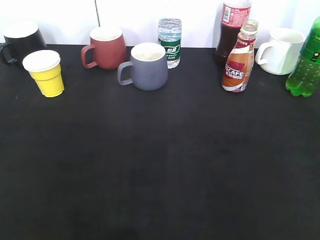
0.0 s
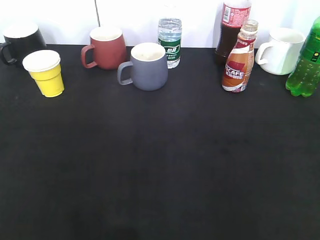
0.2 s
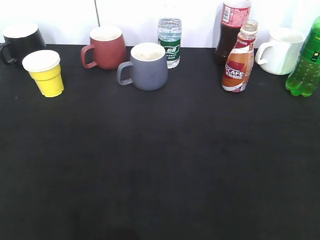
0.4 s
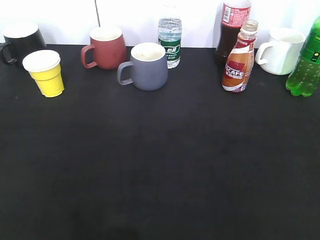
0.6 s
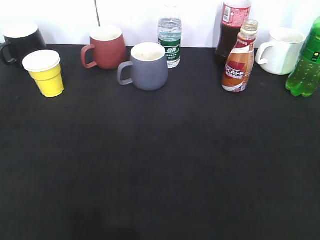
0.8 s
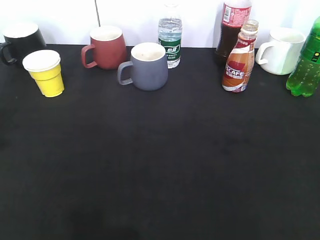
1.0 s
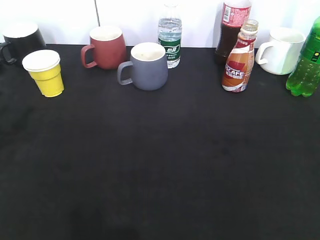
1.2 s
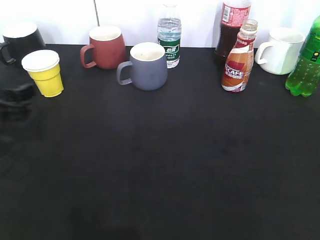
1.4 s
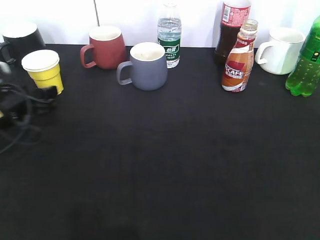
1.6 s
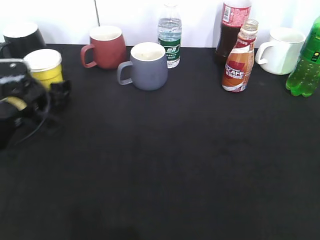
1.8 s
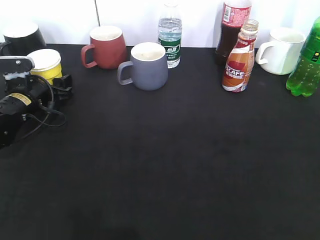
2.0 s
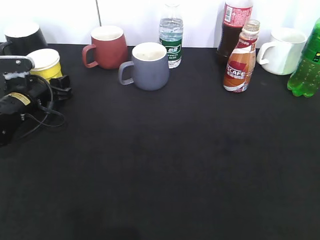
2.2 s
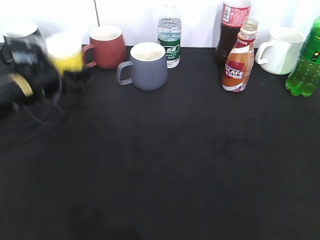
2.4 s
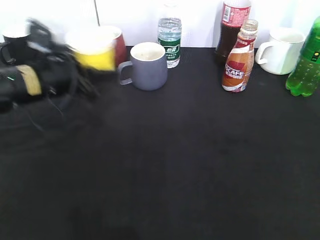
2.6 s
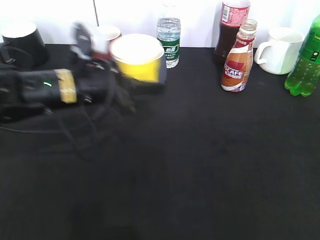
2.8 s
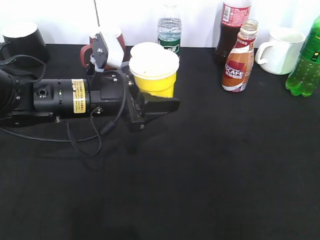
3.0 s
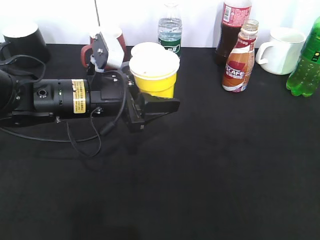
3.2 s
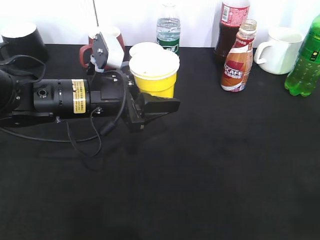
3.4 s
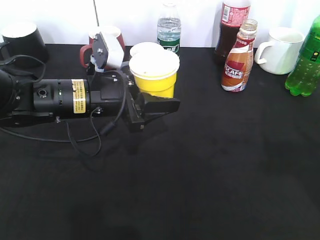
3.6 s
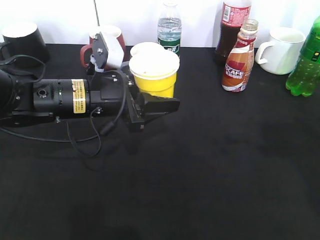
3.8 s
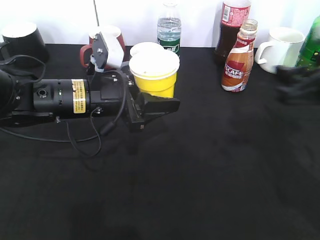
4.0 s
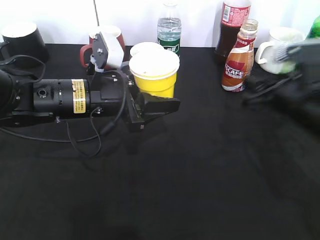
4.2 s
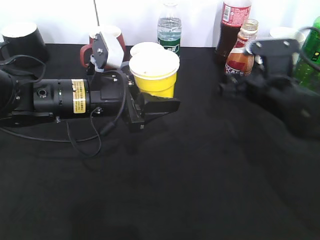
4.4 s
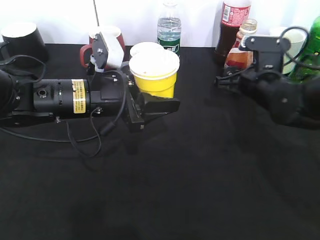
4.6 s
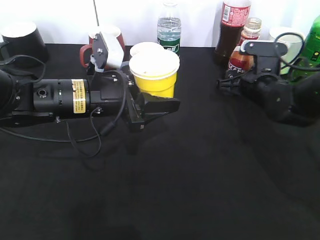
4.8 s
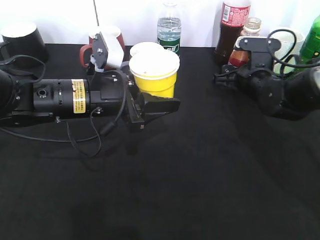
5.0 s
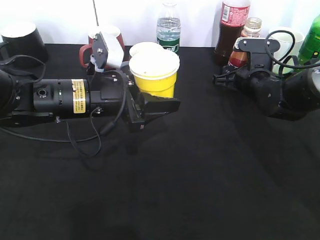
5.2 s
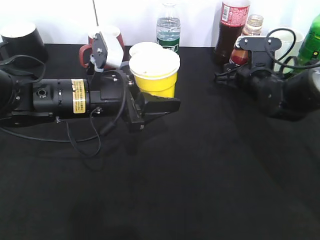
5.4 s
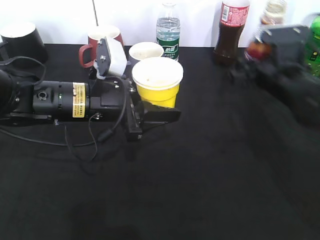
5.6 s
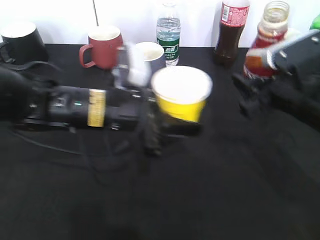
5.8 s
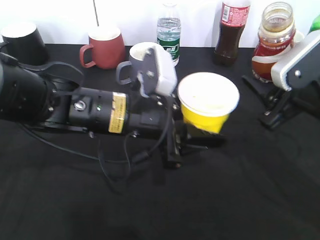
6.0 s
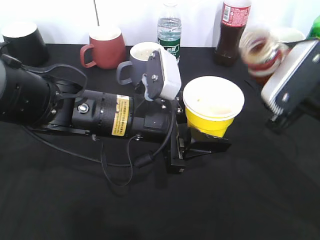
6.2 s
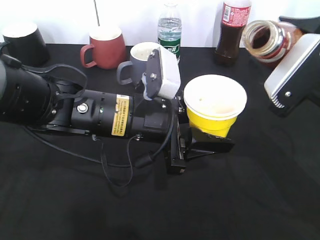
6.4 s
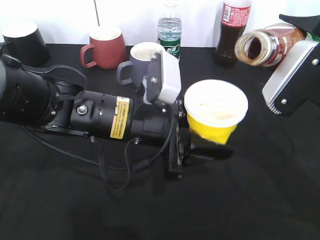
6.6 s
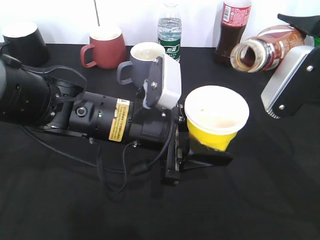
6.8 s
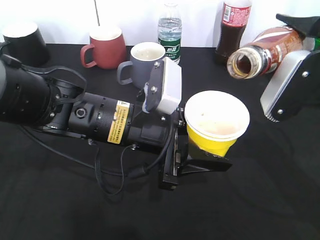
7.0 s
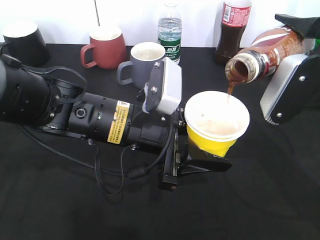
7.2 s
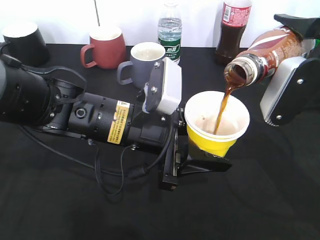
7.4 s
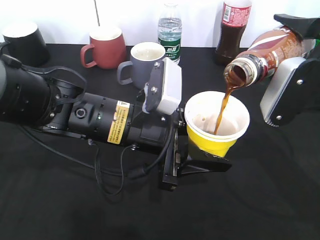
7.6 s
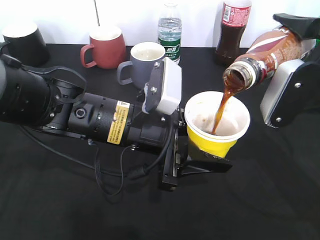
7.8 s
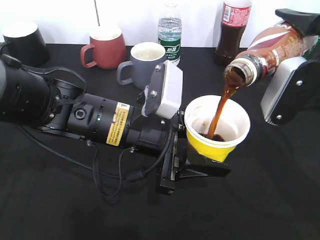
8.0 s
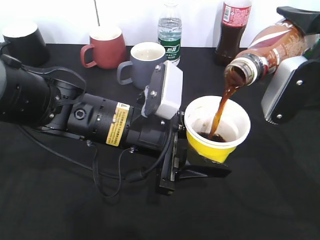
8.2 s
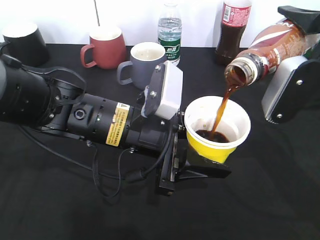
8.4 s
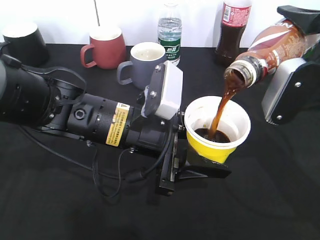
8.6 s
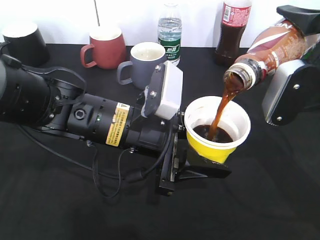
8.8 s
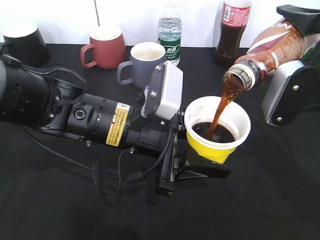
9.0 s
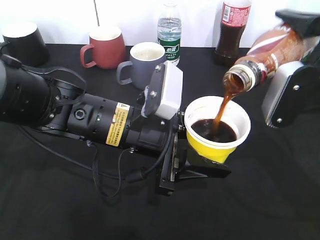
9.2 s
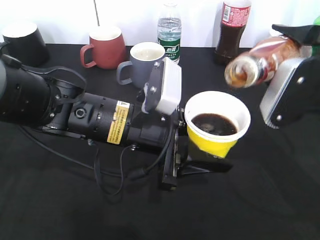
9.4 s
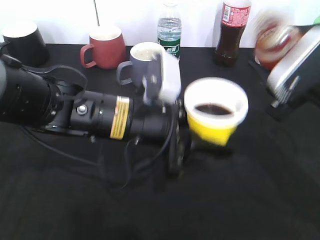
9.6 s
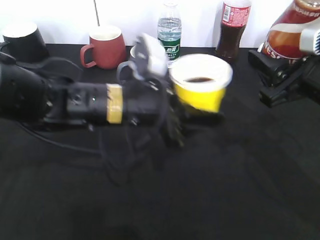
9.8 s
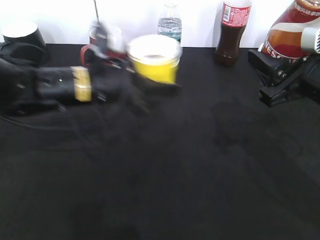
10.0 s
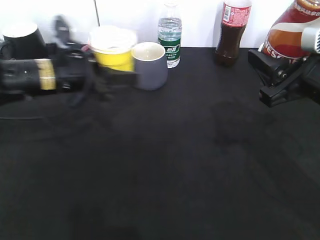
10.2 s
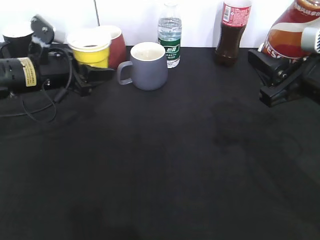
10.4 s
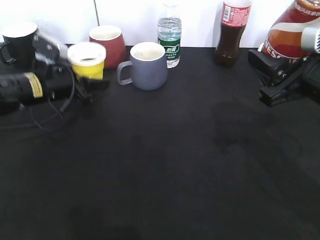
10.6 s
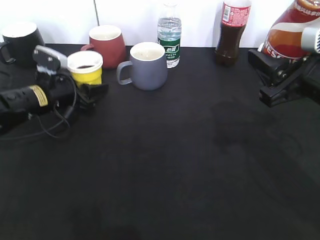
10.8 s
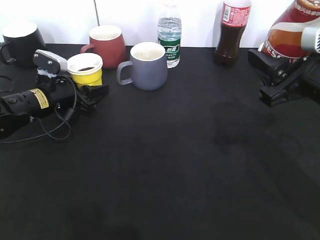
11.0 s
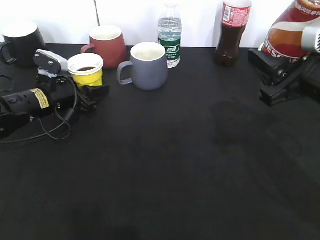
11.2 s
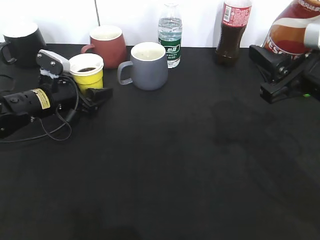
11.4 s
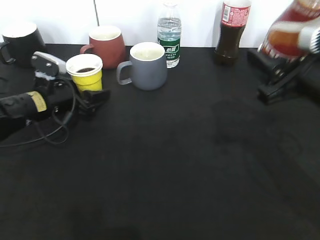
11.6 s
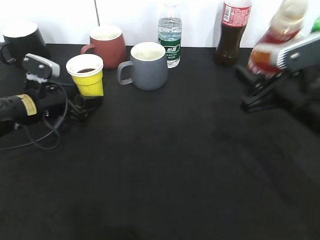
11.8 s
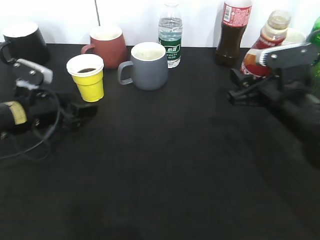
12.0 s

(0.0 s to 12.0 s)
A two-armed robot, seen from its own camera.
Step, 0.6 s - 2.0 s: Grasp the yellow paper cup with left gripper.
Step, 2.4 s - 3.2 s: Lift the yellow paper cup with left gripper.
Step, 3.4 s - 5.0 s: Grasp the bottle with coffee with right gripper.
Step, 5.2 s - 9.4 s: Pour the coffee from bottle to cup with right gripper.
Step, 9.6 s - 11.4 s: Place the yellow paper cup on the table with left gripper.
0.0 s - 1.6 s: The left gripper is displaced forward and downward by approximately 35 cm, and opens up.
1.6 s - 3.0 s: The left gripper goes about 15 cm to the right, and closes up.
3.0 s - 4.4 s: The right gripper goes approximately 35 cm forward and downward.
4.4 s - 6.0 s: The left gripper travels to the right by some 5 cm. The right gripper travels backward and upward by roughly 15 cm.
7.6 s - 9.0 s: The grippers move only a little.
9.0 s - 10.4 s: The left gripper is displaced to the left and forward by roughly 20 cm.
10.4 s - 12.0 s: The right gripper goes some 10 cm downward and forward; the left gripper shifts approximately 5 cm downward, and opens.

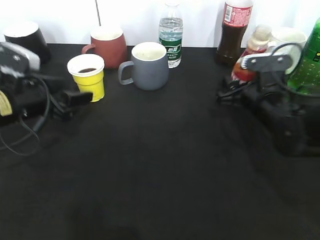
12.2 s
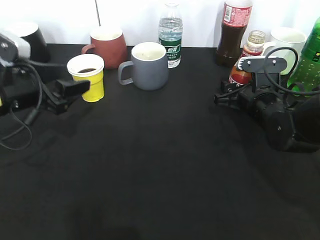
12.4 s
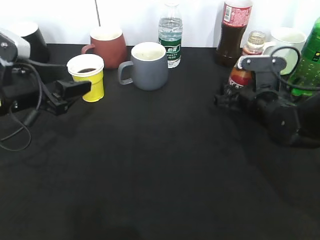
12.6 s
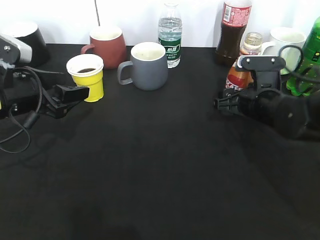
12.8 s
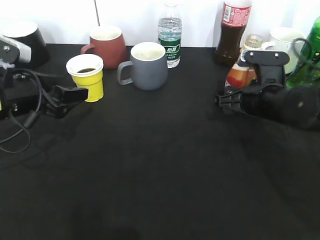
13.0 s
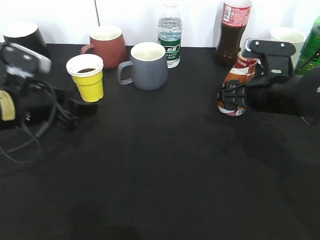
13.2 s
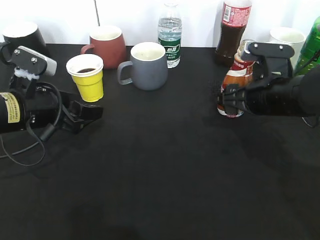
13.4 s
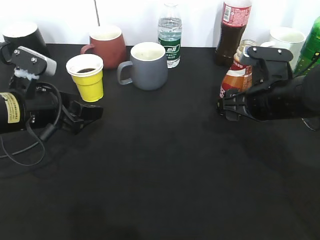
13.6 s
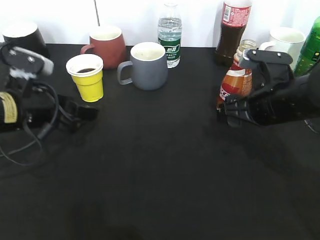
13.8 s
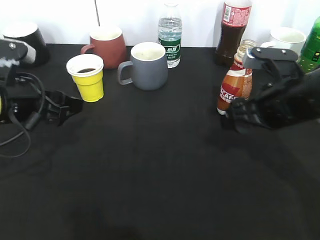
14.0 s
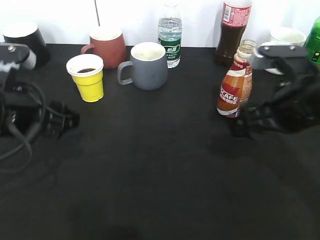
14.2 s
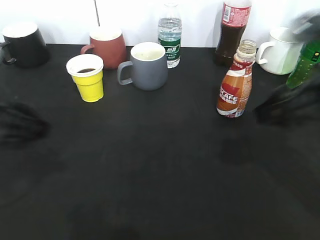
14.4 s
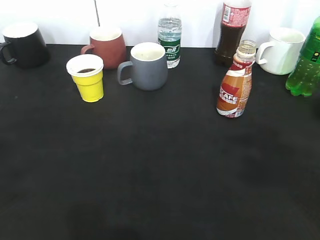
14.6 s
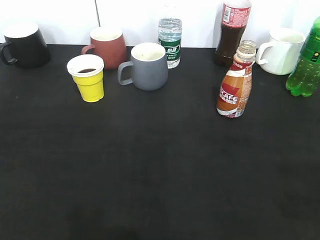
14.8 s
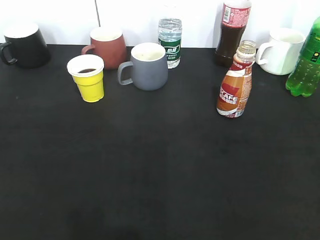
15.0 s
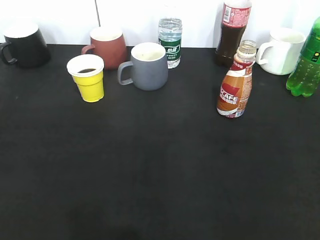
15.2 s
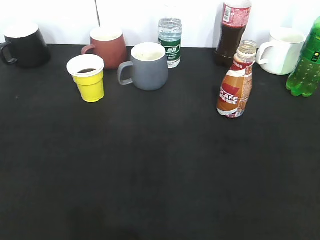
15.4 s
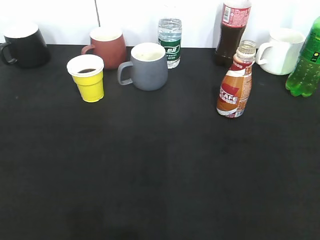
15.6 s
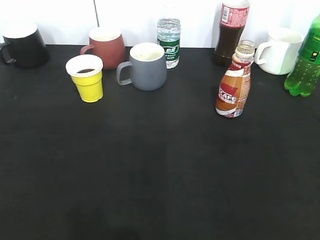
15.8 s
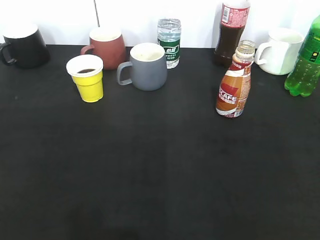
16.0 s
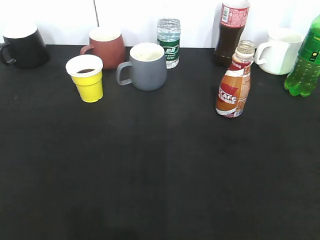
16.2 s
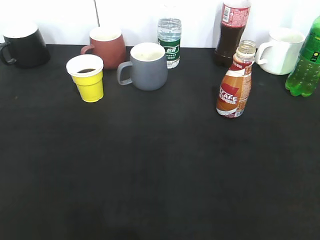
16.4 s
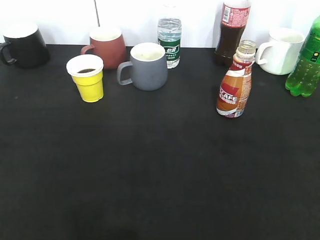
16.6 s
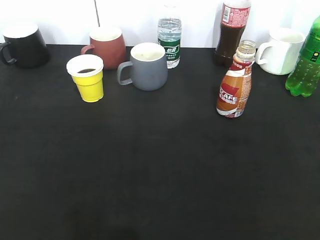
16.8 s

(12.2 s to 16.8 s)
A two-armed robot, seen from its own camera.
12.2 s - 13.8 s: The right gripper shifts some 5 cm upward.
13.8 s - 15.2 s: The left gripper moves backward, to the left and upward, approximately 30 cm, and closes up; the right gripper travels backward, to the right and upward by about 35 cm.
